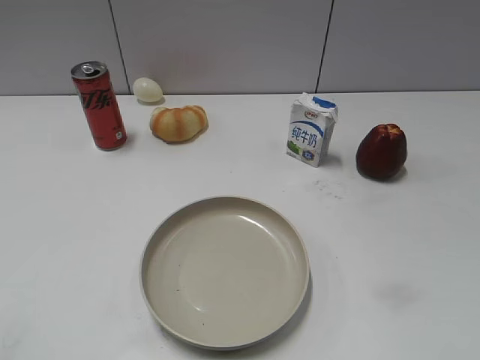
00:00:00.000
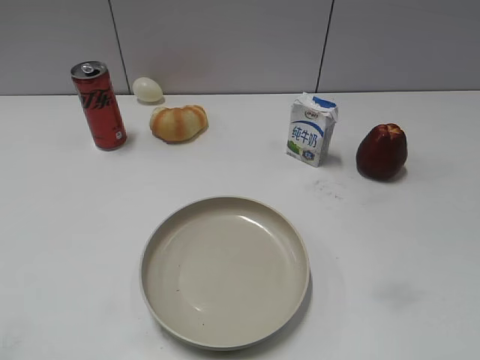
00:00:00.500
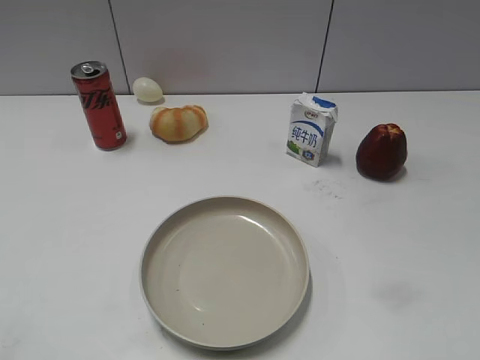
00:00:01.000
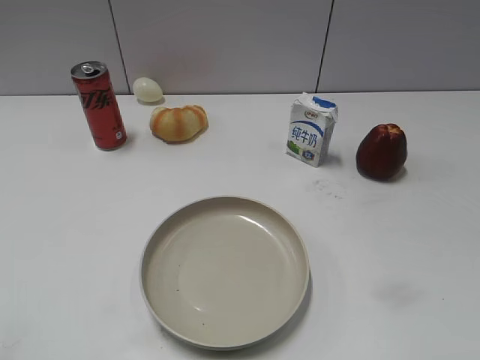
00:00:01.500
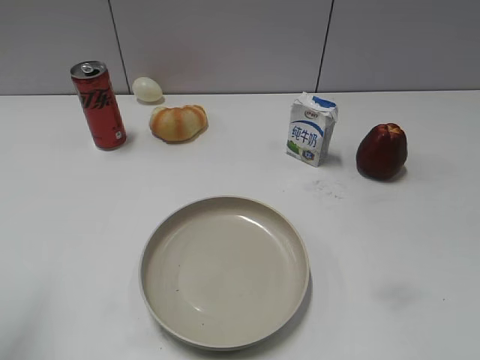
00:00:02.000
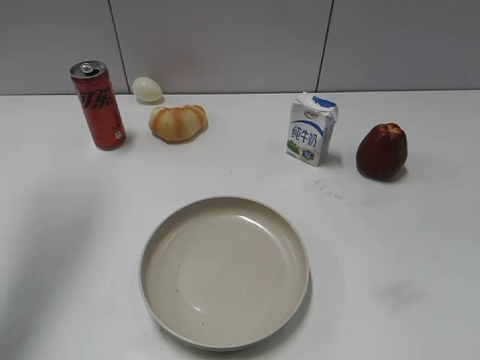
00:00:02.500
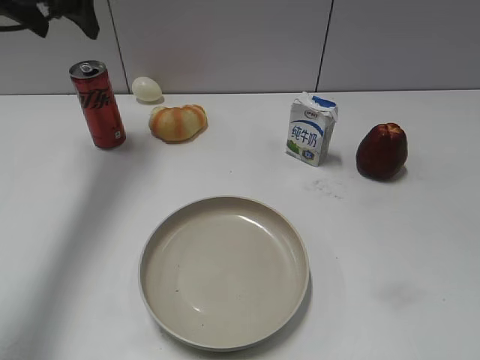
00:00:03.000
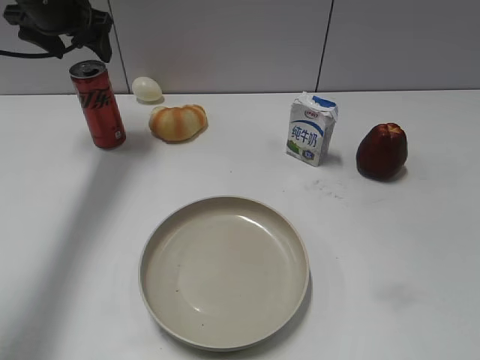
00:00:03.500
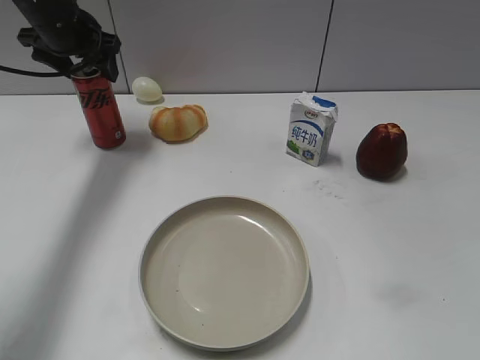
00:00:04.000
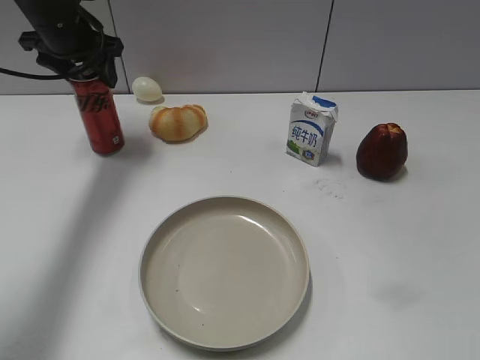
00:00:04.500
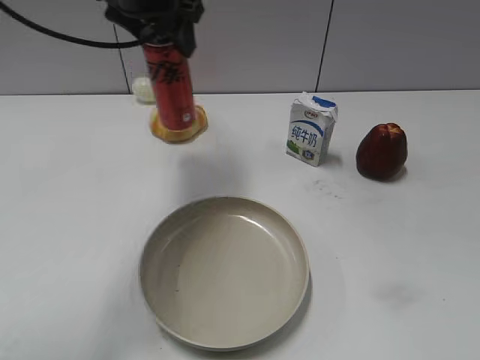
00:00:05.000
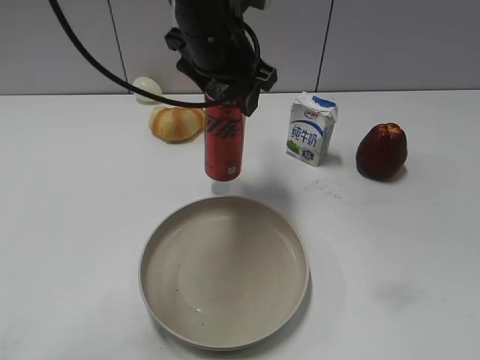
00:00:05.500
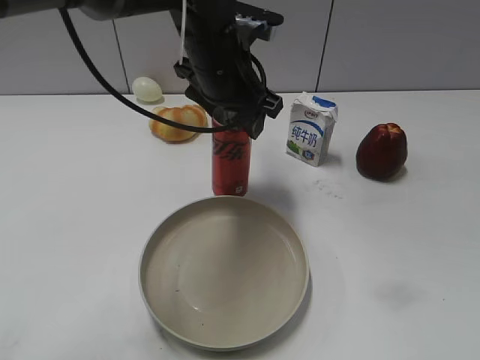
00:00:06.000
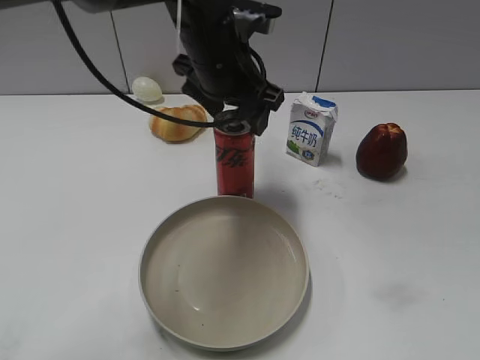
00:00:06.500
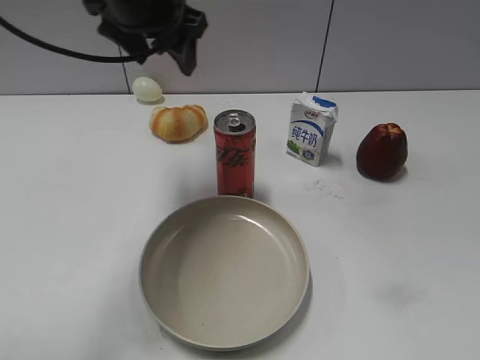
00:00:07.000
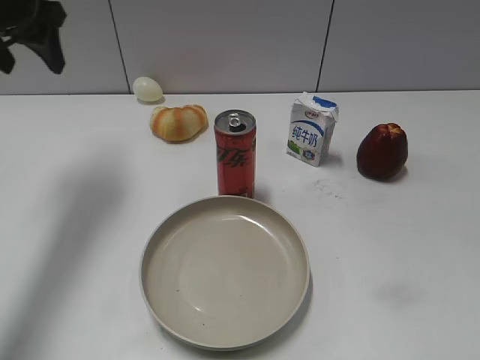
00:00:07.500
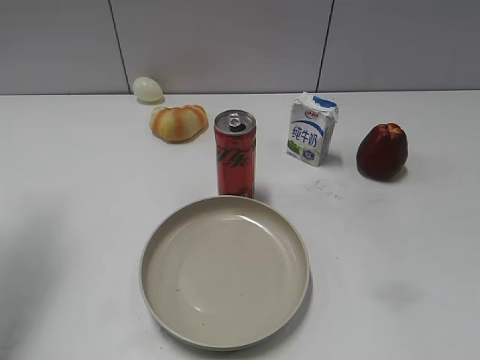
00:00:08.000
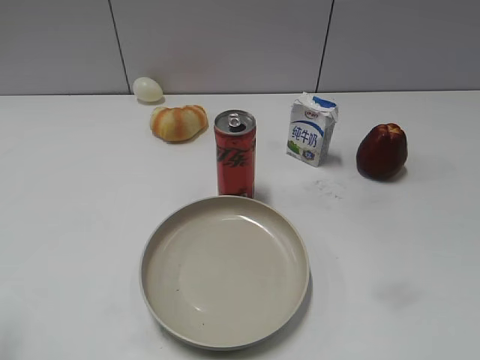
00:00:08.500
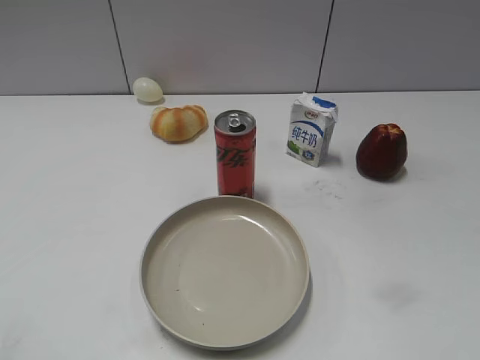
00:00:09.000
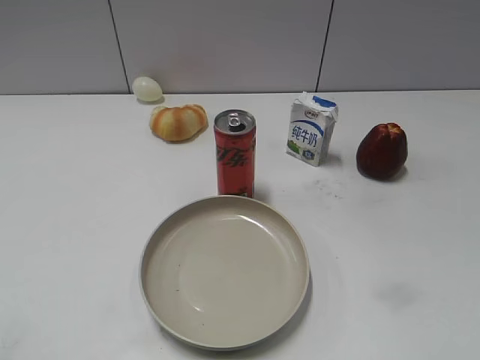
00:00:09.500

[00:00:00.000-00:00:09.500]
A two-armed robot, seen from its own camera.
Step, 00:00:01.500 to 00:00:04.000: Grasp the cola with left gripper.
Step, 00:00:04.500 to 00:00:06.500: Place the cola on the table with left gripper.
00:00:02.000 to 00:00:04.000: The left gripper moves forward, about 35 cm, and opens.
00:00:04.000 to 00:00:05.500: The left gripper heads to the right and backward, covering roughly 25 cm, and closes up.
00:00:05.500 to 00:00:07.500: The left gripper shifts about 25 cm to the left.
00:00:07.500 to 00:00:09.500: The left gripper travels backward by approximately 40 cm.

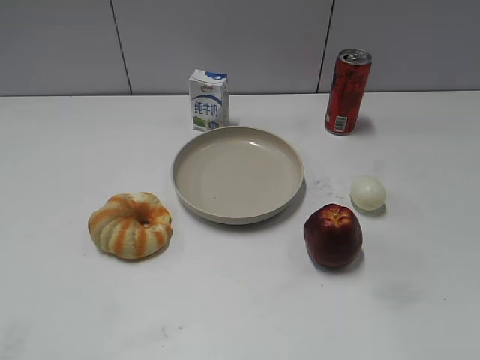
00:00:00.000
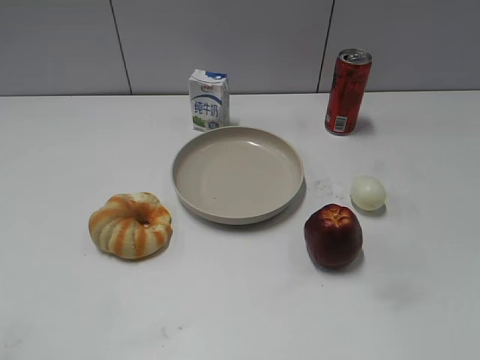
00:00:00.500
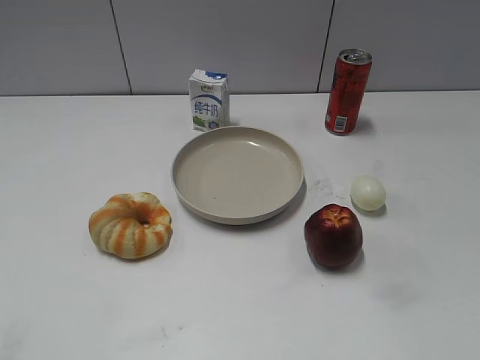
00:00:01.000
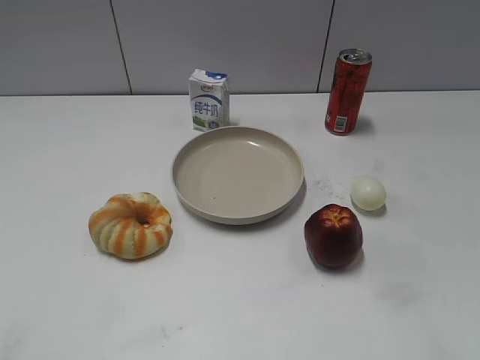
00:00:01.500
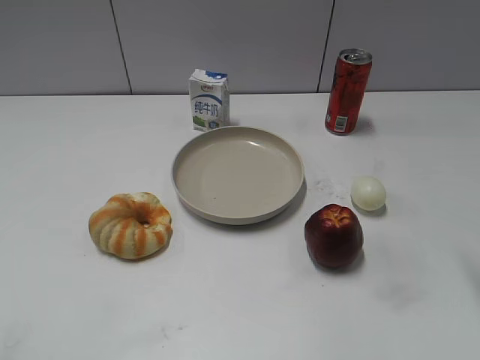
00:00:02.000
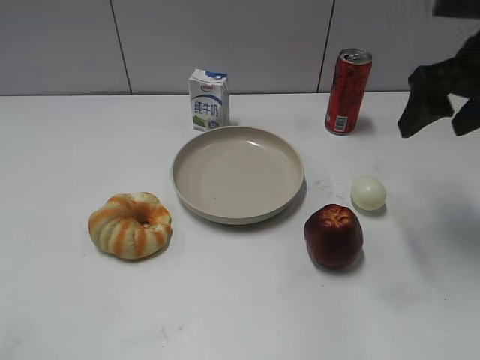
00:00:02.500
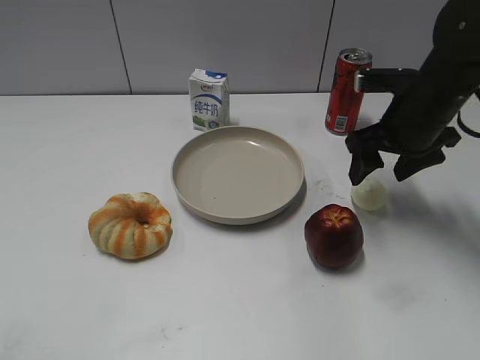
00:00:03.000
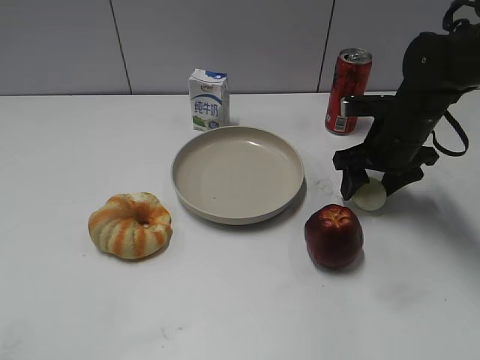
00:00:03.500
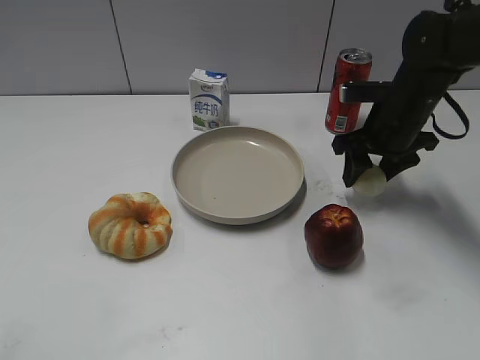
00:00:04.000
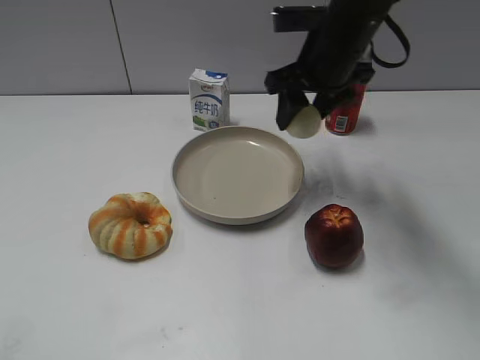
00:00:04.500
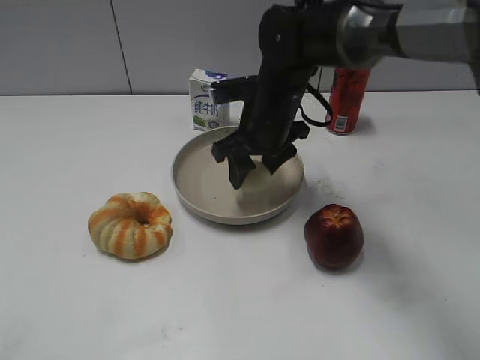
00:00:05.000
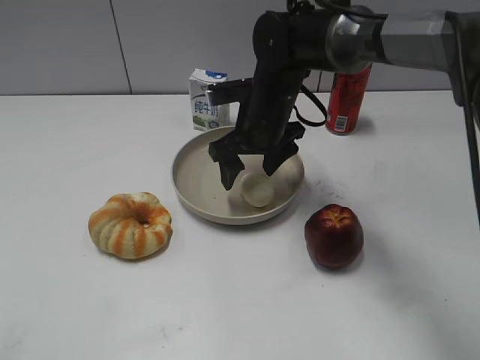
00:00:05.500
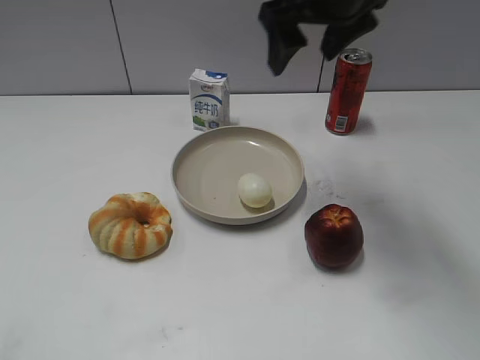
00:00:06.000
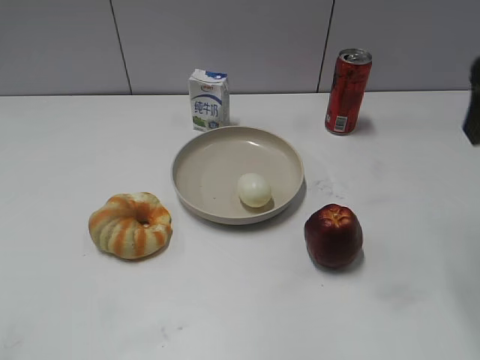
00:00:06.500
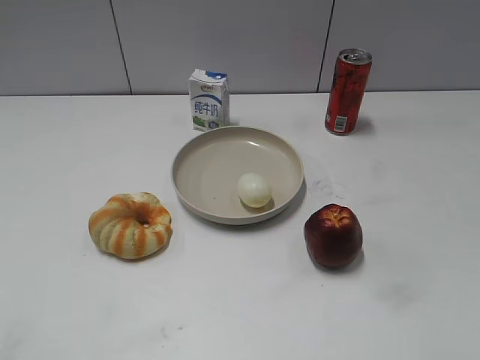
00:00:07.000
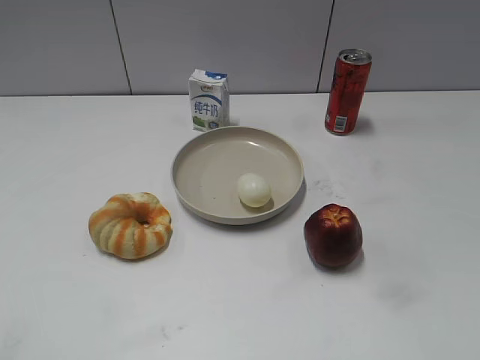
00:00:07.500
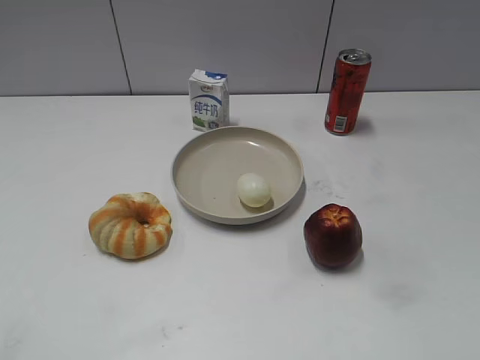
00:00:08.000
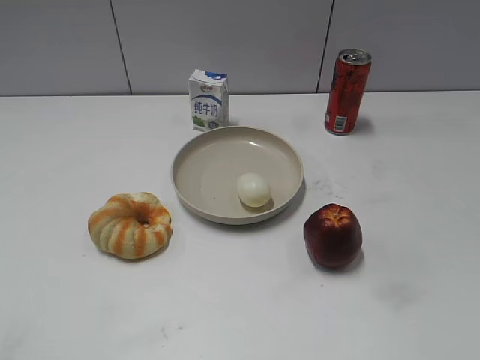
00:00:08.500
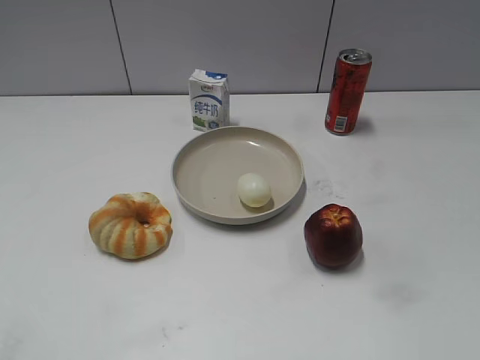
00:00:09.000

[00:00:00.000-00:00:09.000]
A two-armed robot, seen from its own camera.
Step, 00:00:01.500 to 00:00:03.500: Grasp the egg with right gripper.
Step, 00:00:04.000 to 00:00:05.000: Place the egg on the plate with right gripper.
00:00:02.000 to 00:00:04.500: The right gripper heads to the left, forward and downward, covering approximately 25 cm, and closes.
00:00:04.500 to 00:00:07.000: The right gripper heads backward and to the right, covering approximately 35 cm, and opens its fingers.
